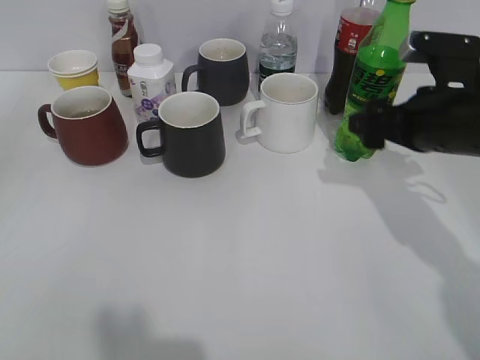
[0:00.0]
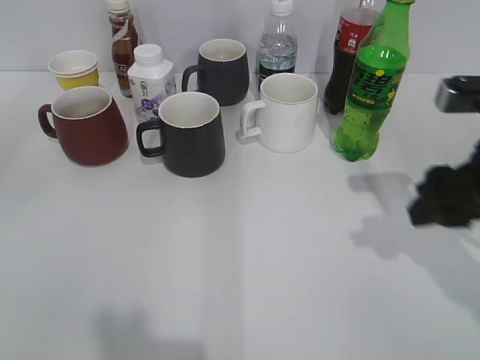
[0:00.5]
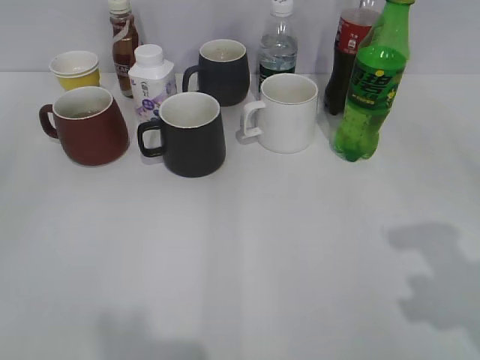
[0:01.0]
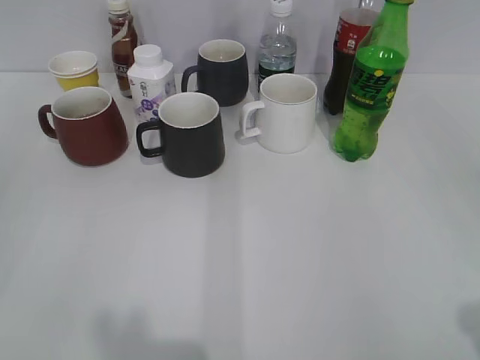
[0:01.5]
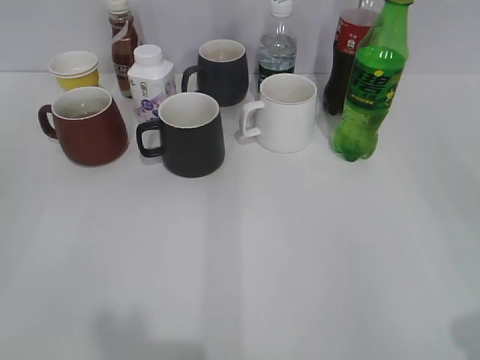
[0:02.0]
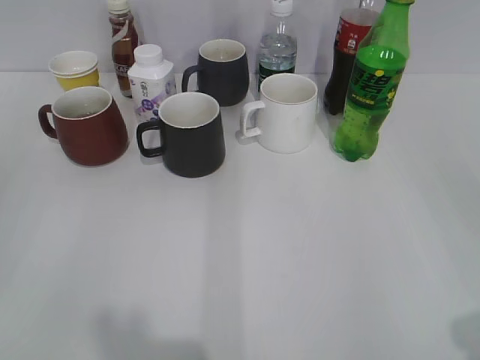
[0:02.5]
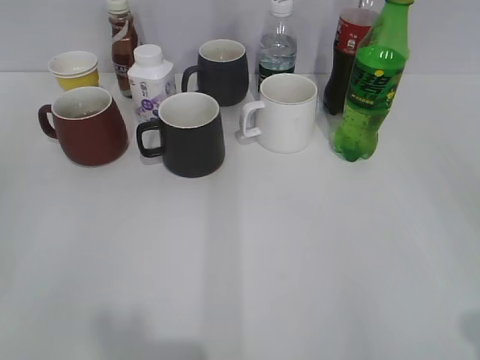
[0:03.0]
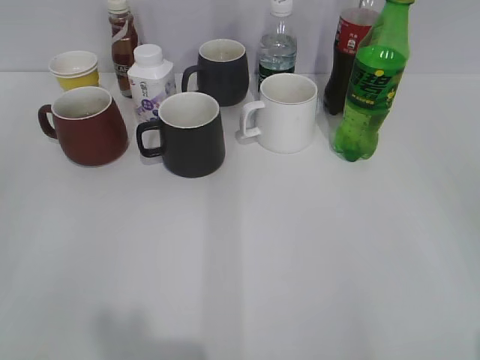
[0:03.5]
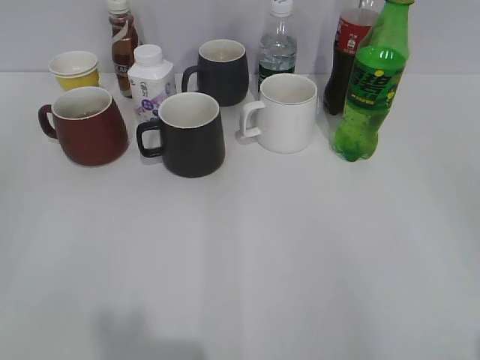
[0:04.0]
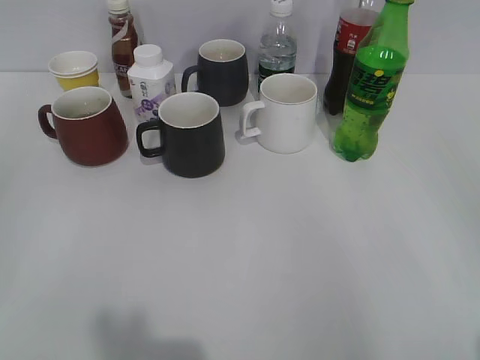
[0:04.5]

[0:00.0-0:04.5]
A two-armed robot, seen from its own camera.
0:00.0 to 0:02.0: The right gripper shifts some 30 cm backward, and closes up.

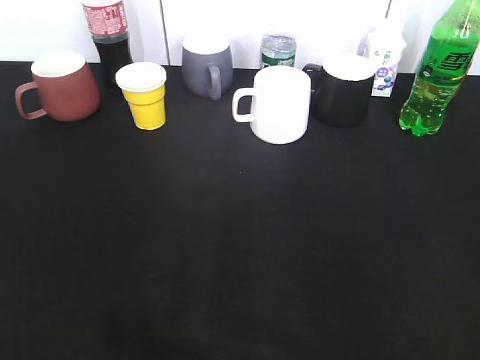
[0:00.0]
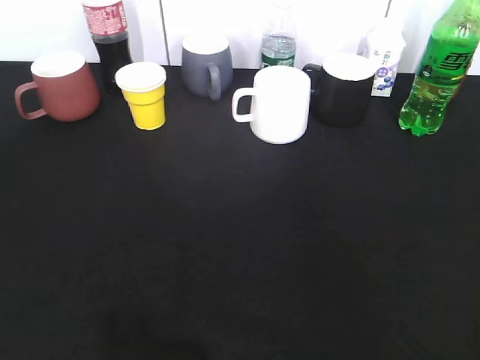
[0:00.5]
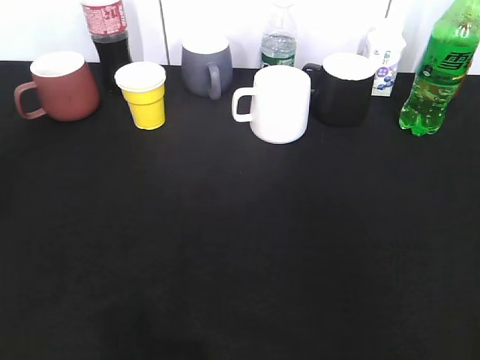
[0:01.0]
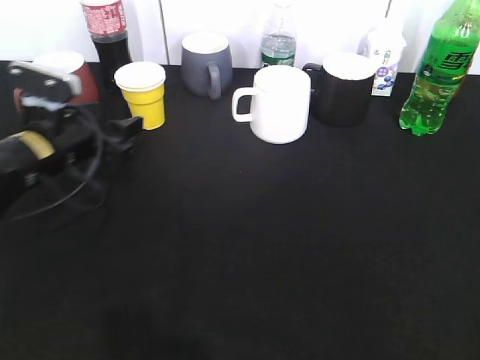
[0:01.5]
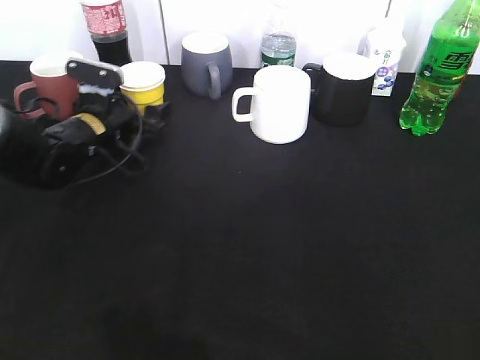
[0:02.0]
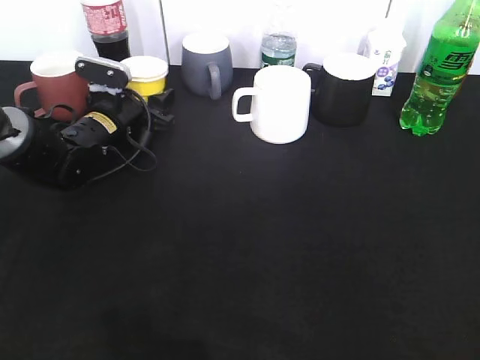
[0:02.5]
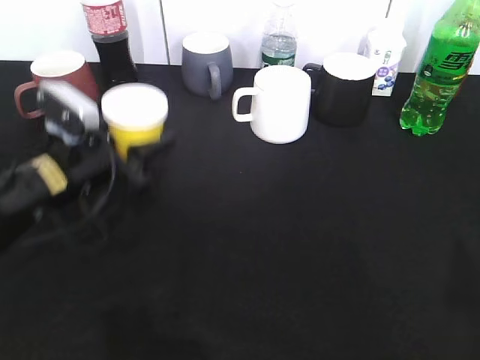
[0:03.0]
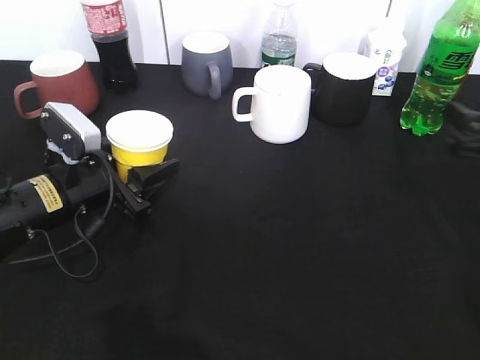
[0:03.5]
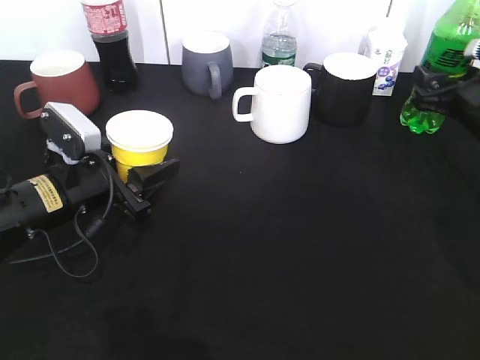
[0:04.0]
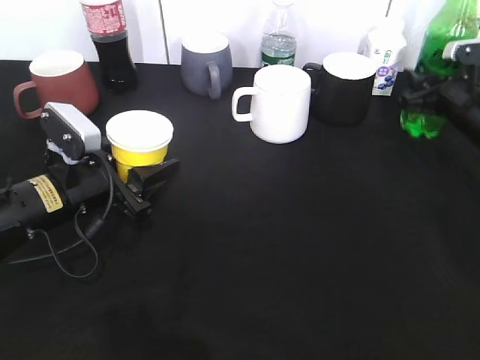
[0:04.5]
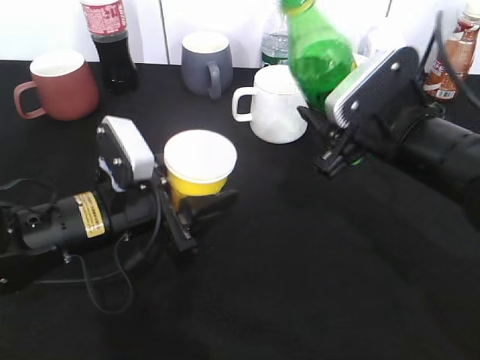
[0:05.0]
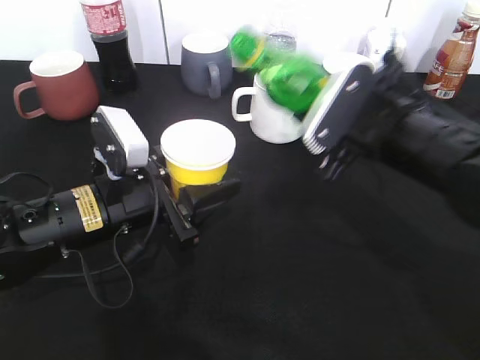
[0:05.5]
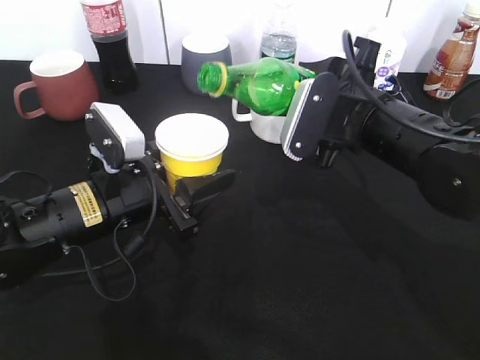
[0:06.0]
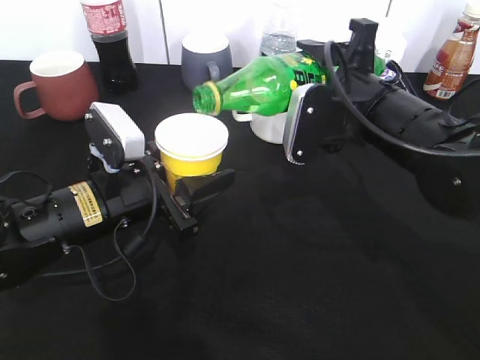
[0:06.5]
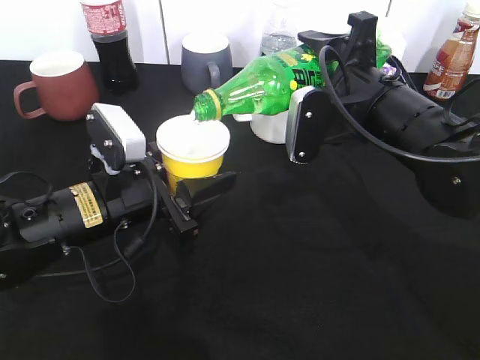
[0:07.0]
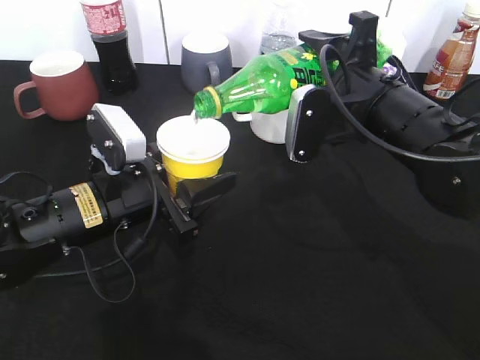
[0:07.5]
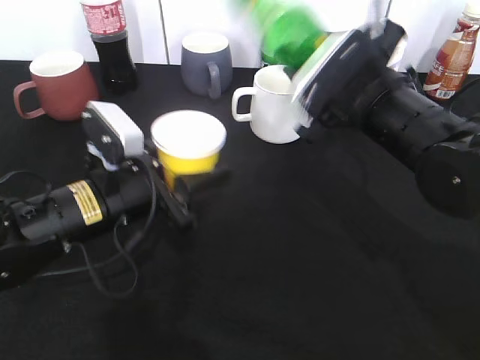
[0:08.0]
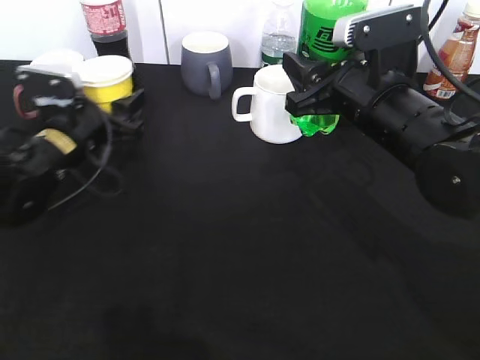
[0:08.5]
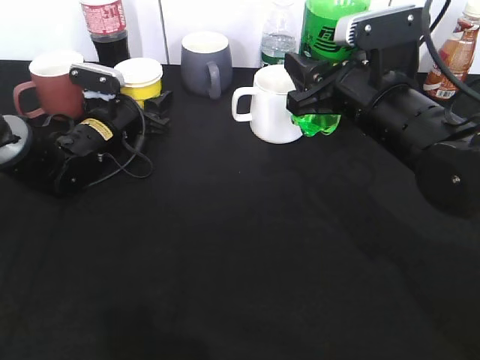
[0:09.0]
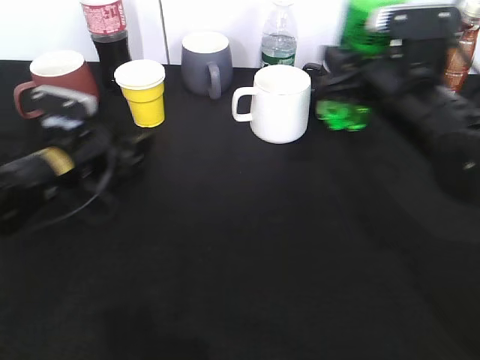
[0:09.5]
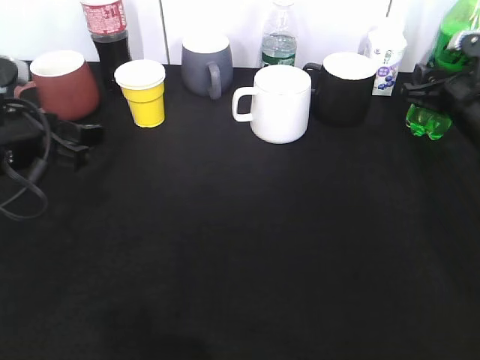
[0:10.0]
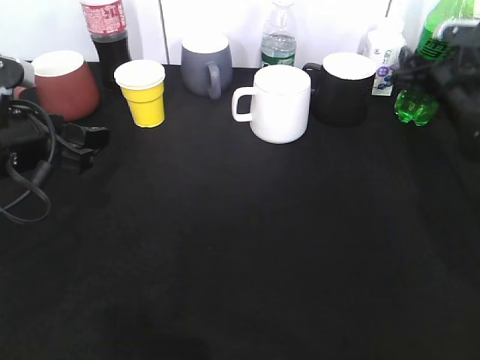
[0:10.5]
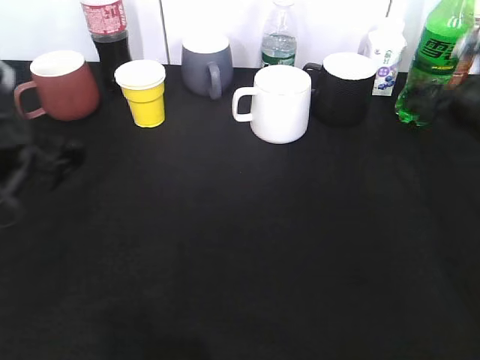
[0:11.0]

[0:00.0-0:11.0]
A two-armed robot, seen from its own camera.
Step, 0:00.0 to 0:02.0: Grasp the yellow paper cup with left gripper.
Step, 0:02.5 to 0:03.0: Lift the yellow paper cup with left gripper.
Step, 0:03.5 to 0:04.0: Grasp the bottle with sprite with right gripper.
Step, 0:05.0 to 0:07.5: Pour the sprite from bottle to cup with right gripper.
Step, 0:08.0 to 0:10.5: Place the sprite bottle on the table with right gripper.
0:00.0 to 0:02.0: The left gripper shifts roughly 50 cm forward and downward, and opens up.
0:02.0 to 0:03.5: The left gripper goes about 15 cm backward, and closes up, while the right gripper goes some 30 cm forward and downward, and opens its fingers.
0:03.5 to 0:05.5: The right gripper travels to the left by some 15 cm, and closes up. Meanwhile the left gripper travels to the right by about 5 cm.
0:07.5 to 0:09.0: The left gripper travels forward by approximately 20 cm.
0:09.0 to 0:11.0: The right gripper shifts about 15 cm to the right, and opens; the left gripper goes about 25 cm backward and upward, and opens up.

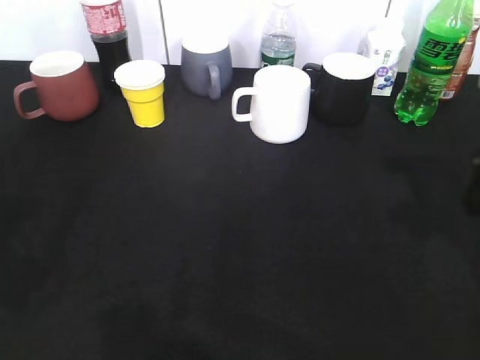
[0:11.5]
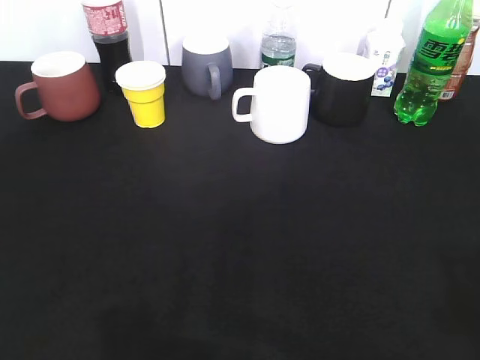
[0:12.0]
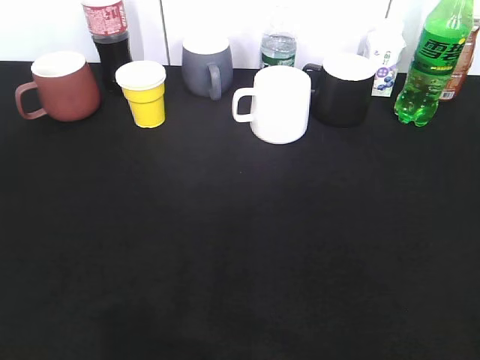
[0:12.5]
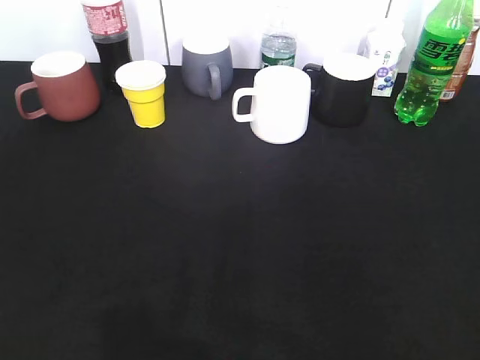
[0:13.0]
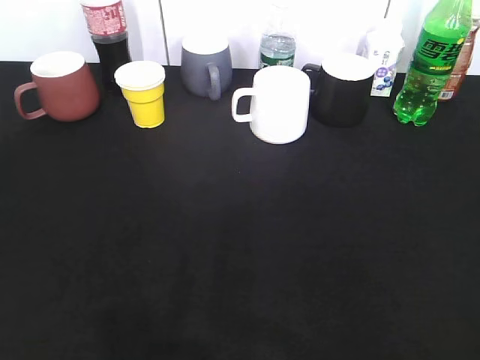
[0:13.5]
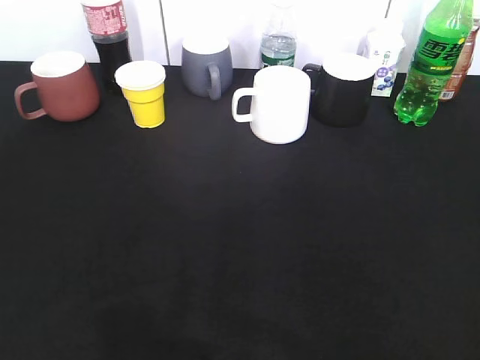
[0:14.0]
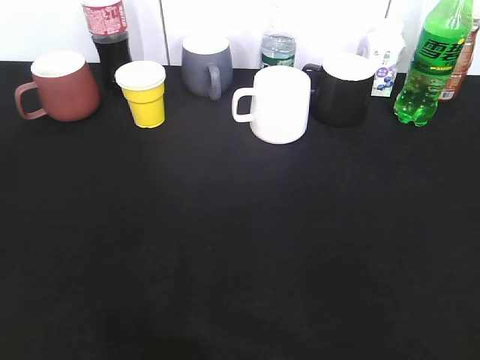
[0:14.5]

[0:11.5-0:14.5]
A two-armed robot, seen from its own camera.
0:11.5 to 0:13.0: The left gripper moves backward, approximately 15 cm; the right gripper is displaced backward by approximately 25 cm.

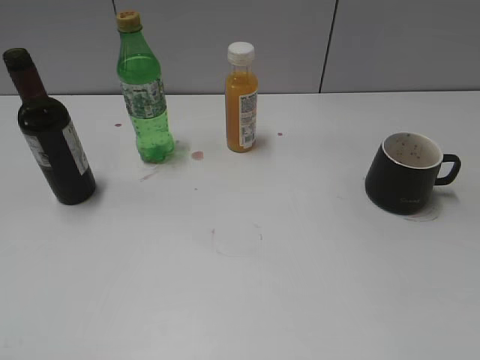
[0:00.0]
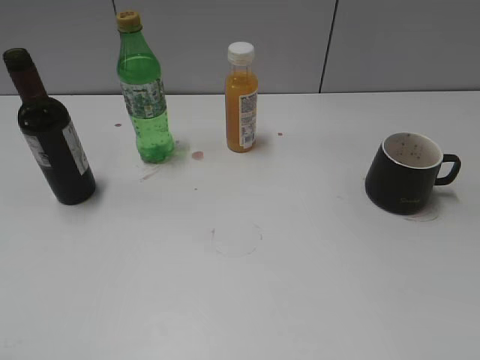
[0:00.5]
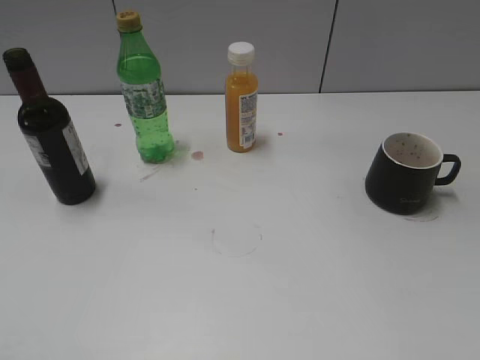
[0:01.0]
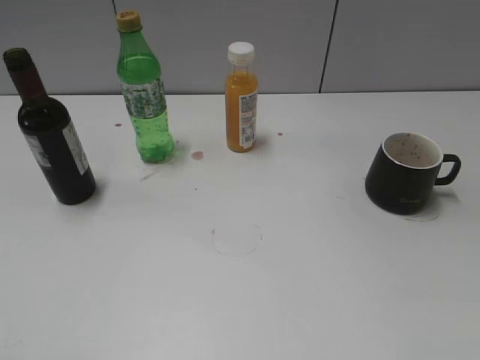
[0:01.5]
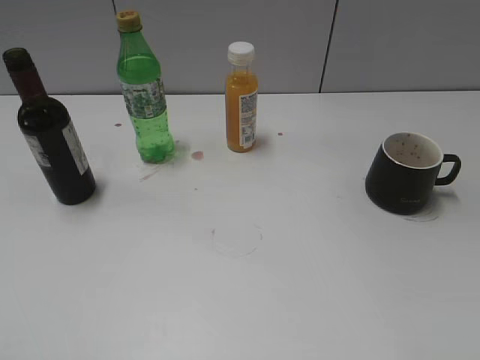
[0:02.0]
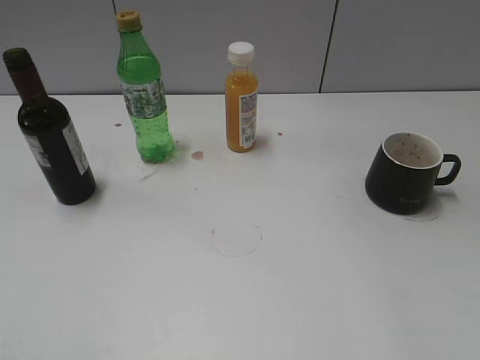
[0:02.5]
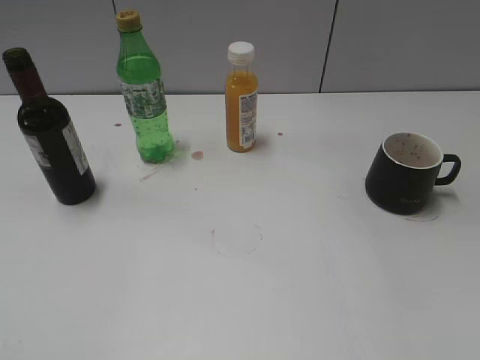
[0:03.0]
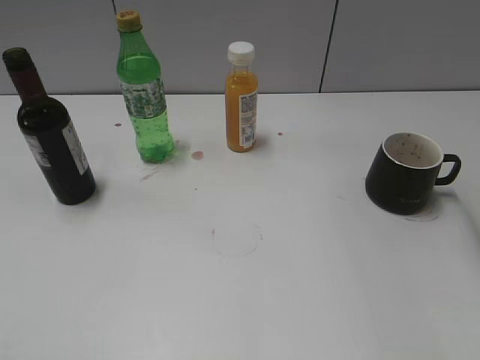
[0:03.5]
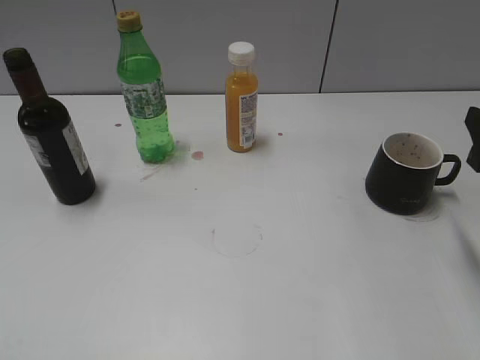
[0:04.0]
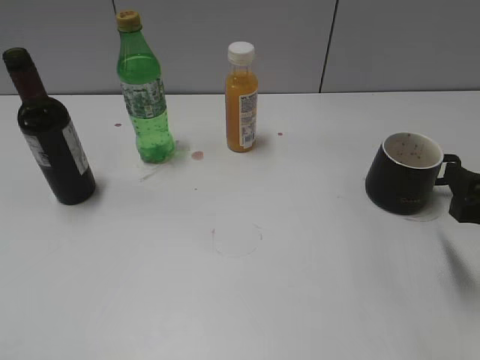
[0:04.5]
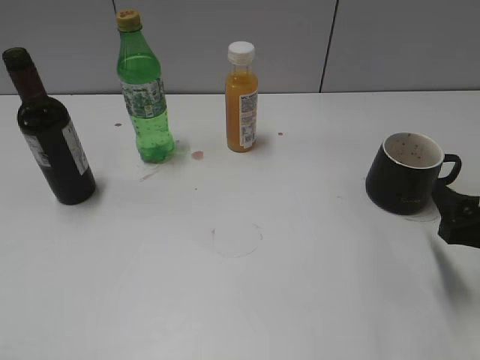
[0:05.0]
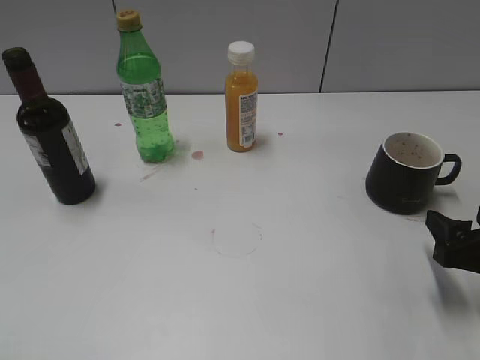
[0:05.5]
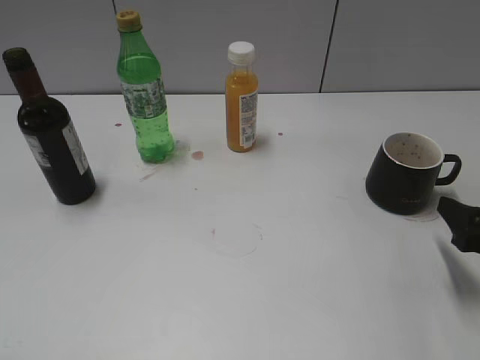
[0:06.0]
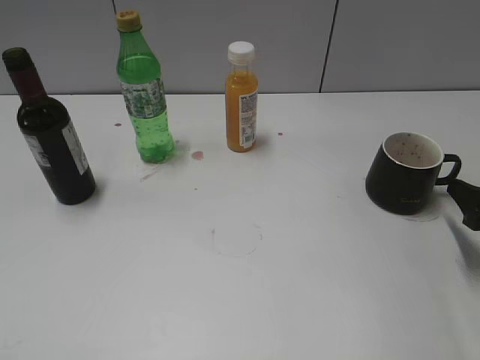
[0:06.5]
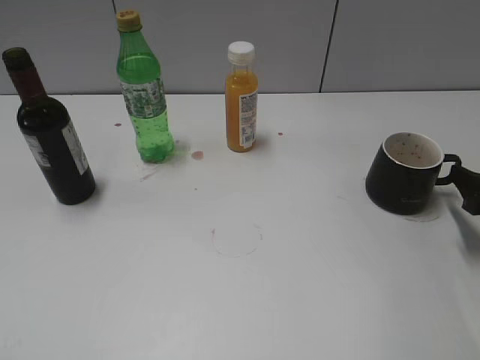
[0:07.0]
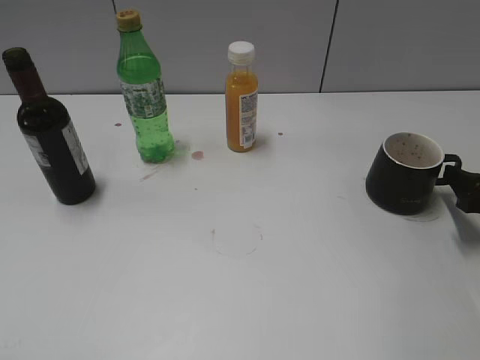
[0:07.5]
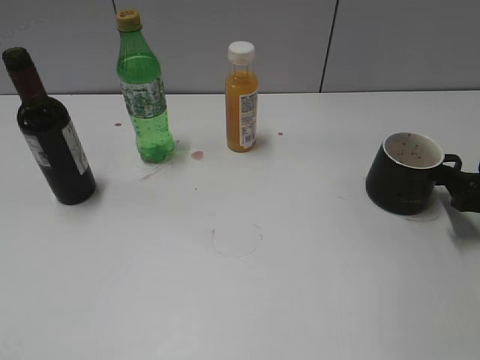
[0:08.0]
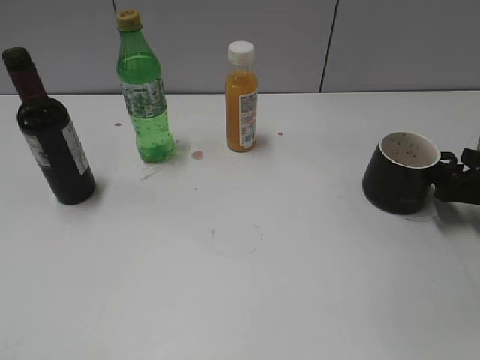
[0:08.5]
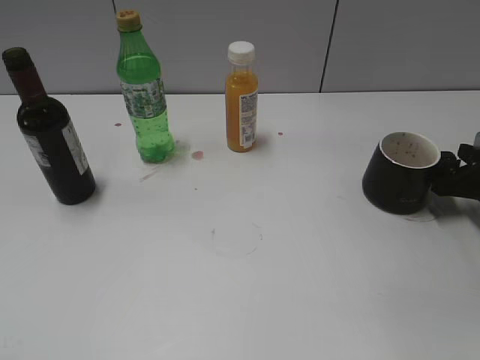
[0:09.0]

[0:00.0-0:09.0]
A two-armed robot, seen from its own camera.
0:02.0 to 0:04.5: The right gripper is displaced forward and downward by some 25 cm.
0:04.5 to 0:07.0: The right gripper heads to the right, forward and downward, covering roughly 10 cm.
0:07.0 to 0:09.0: The right gripper goes roughly 5 cm forward.
